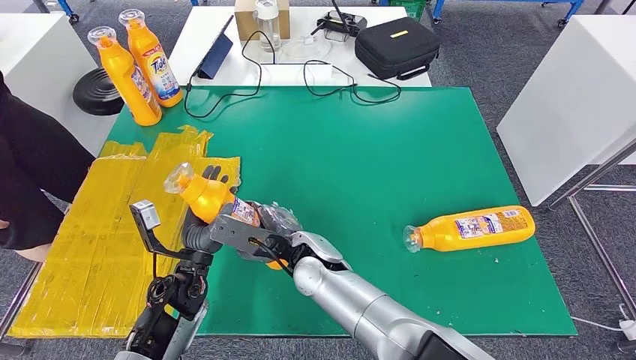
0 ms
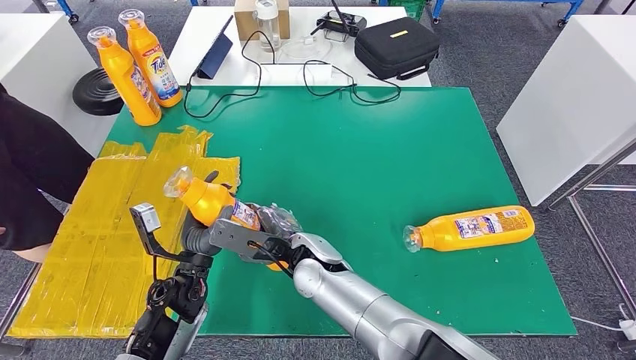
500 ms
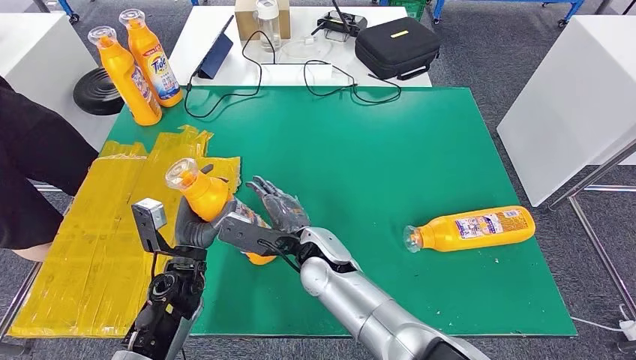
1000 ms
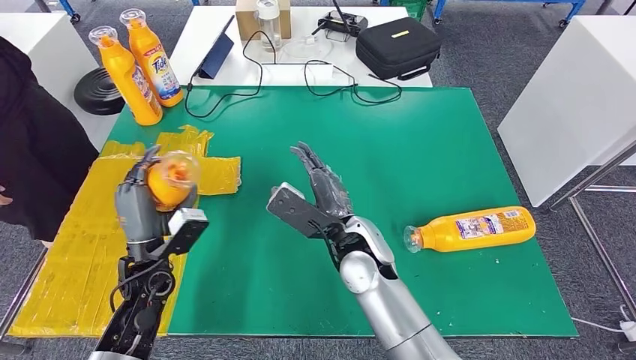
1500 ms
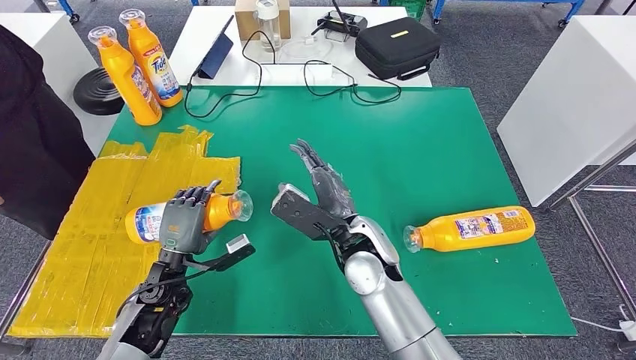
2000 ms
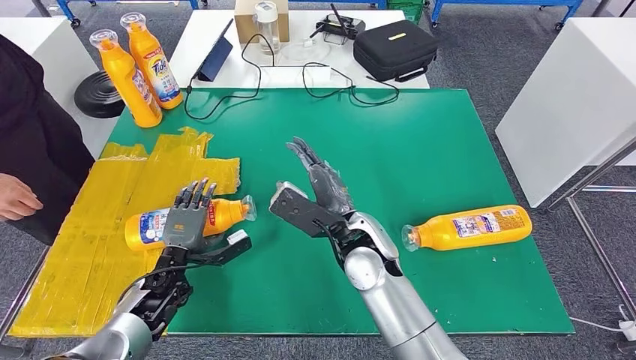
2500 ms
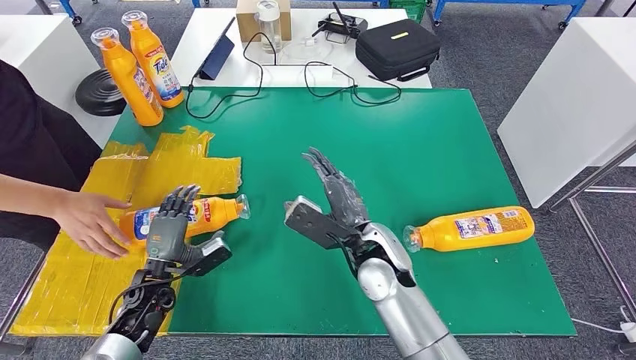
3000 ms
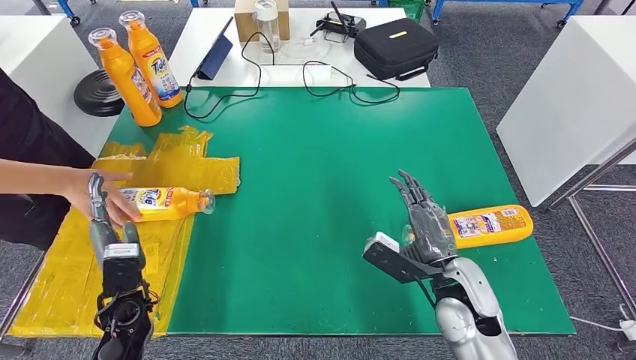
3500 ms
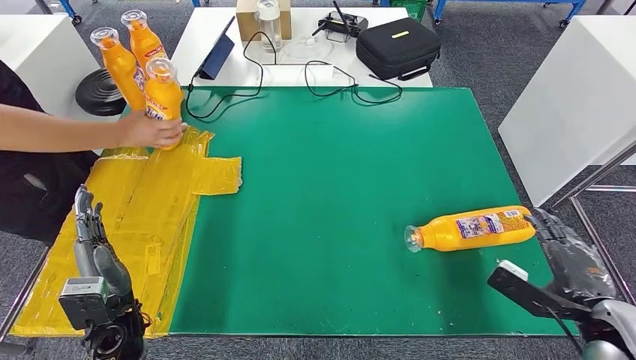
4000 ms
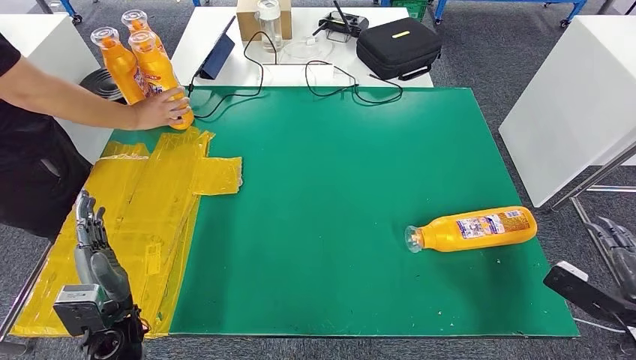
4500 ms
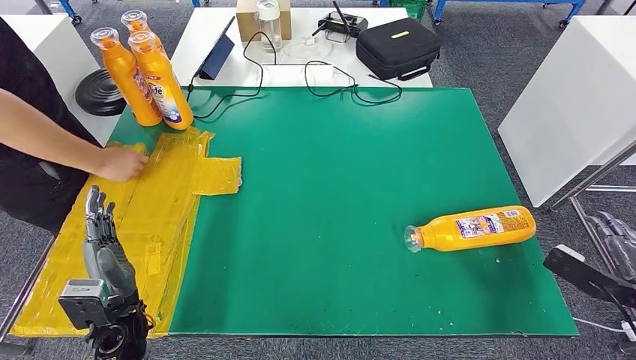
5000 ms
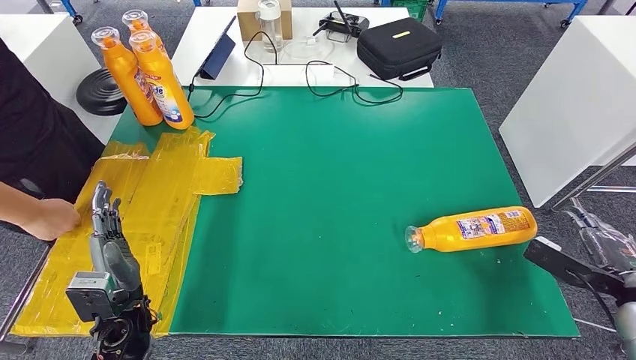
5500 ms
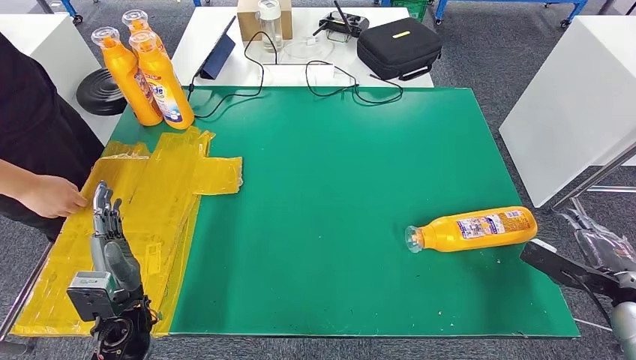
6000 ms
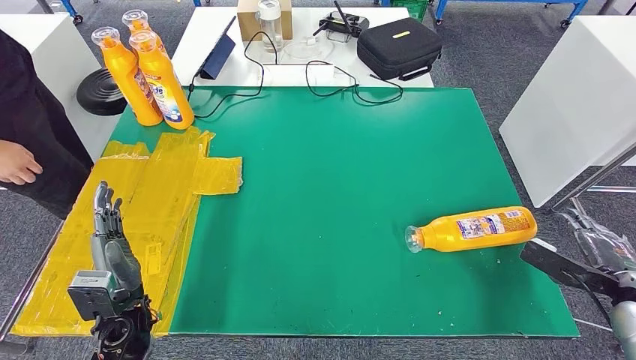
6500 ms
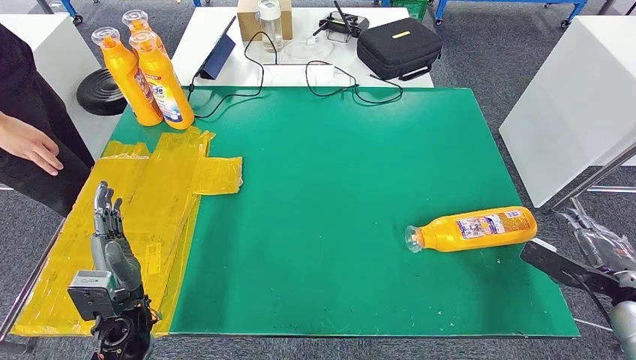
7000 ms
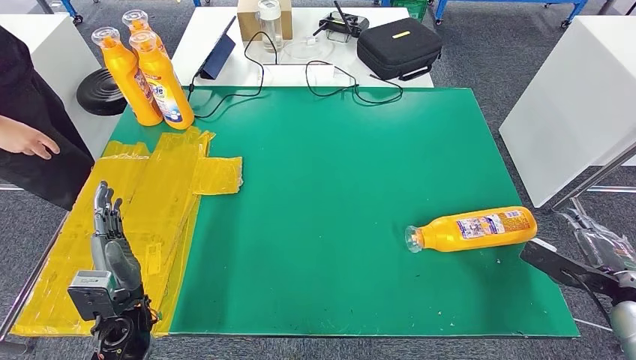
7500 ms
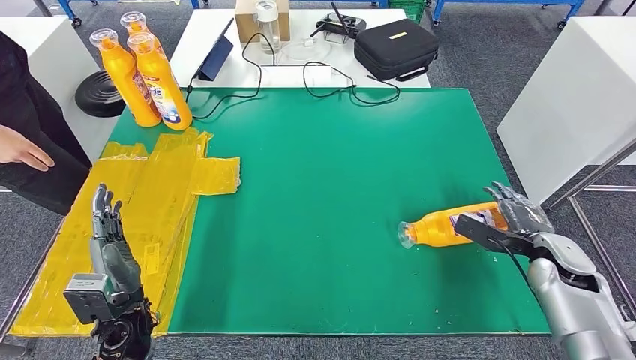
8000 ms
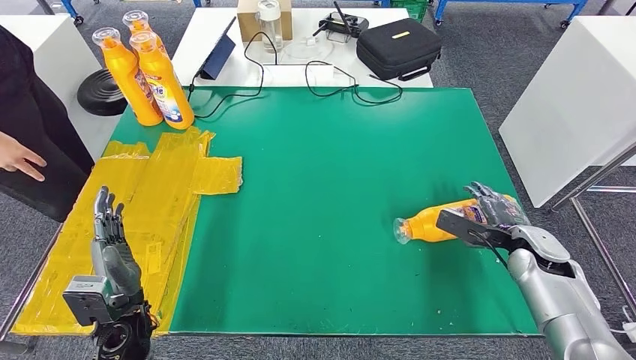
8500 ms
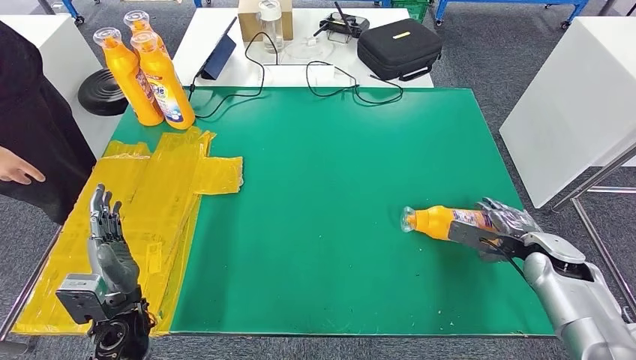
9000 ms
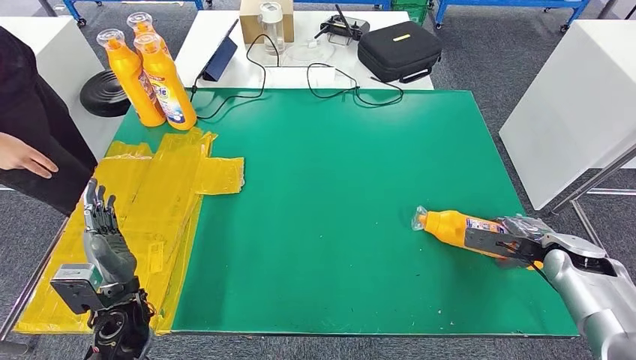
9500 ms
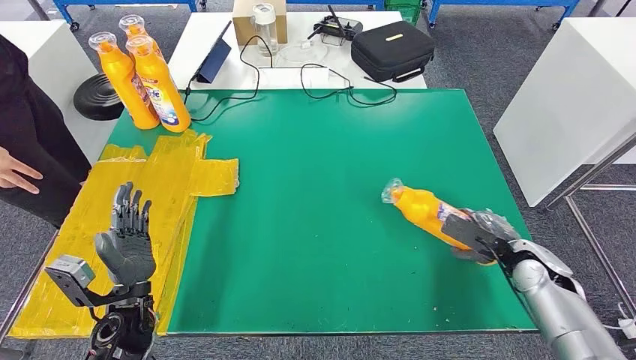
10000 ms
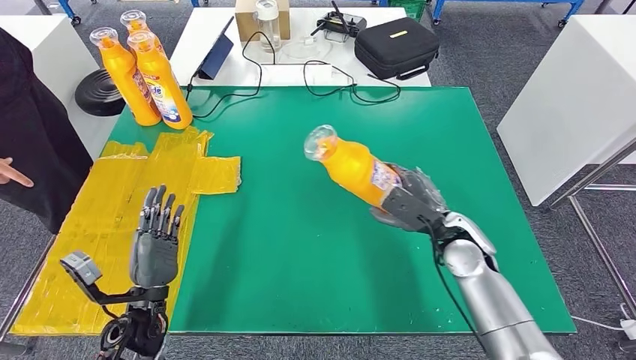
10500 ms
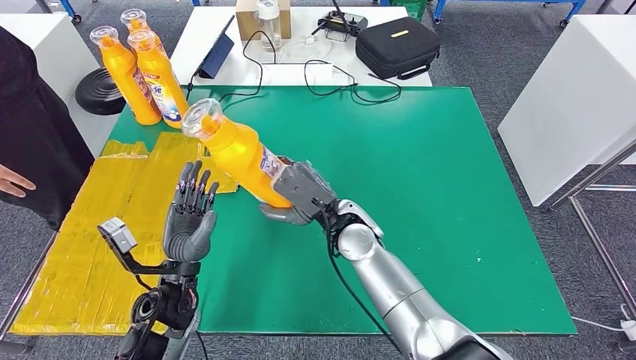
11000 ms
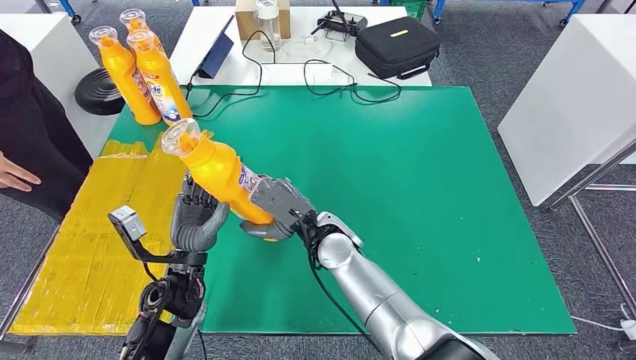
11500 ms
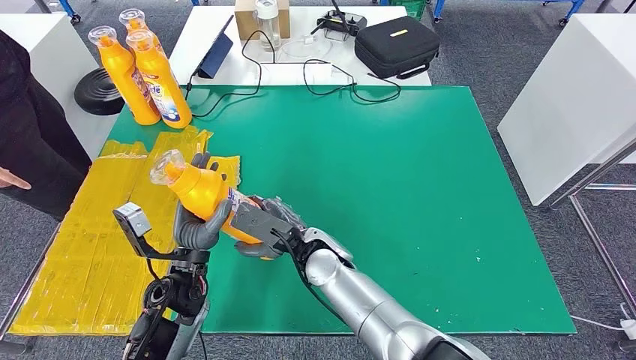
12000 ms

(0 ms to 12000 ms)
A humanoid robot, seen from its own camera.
Step, 0 ms - 2500 ms: Flip the fast-moving consumer goods bottle to the front side.
Step, 8000 ms - 10500 ms: Pick up the fast-moving consumer goods bottle from the table.
0 ms - 2000 ms: The left hand moves to the left, some 5 cm. Meanwhile the right hand shifts roughly 10 cm to the right.
4000 ms - 6000 ms: The right hand goes about 10 cm to the right and forward.

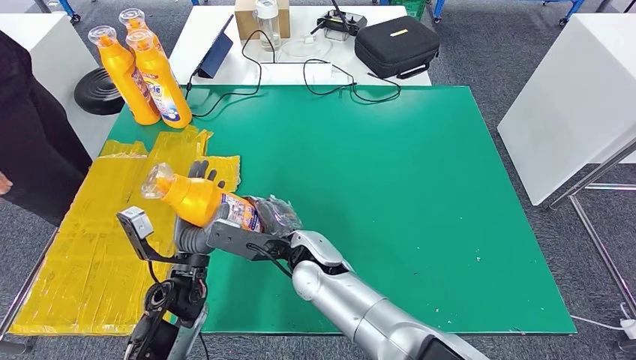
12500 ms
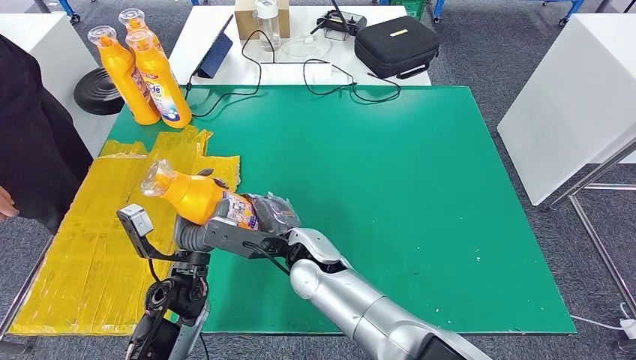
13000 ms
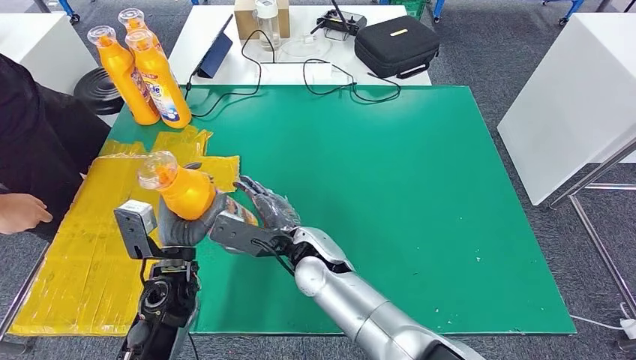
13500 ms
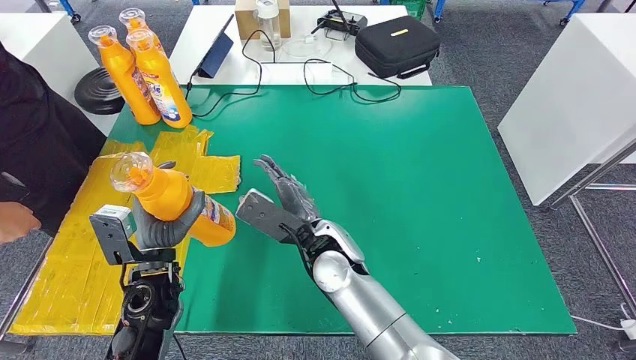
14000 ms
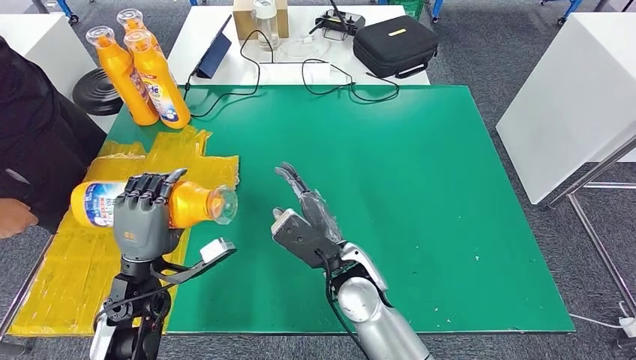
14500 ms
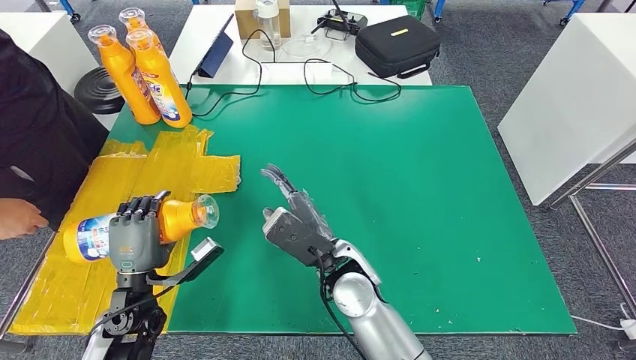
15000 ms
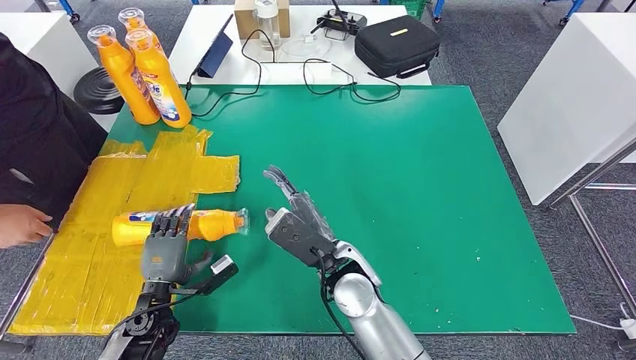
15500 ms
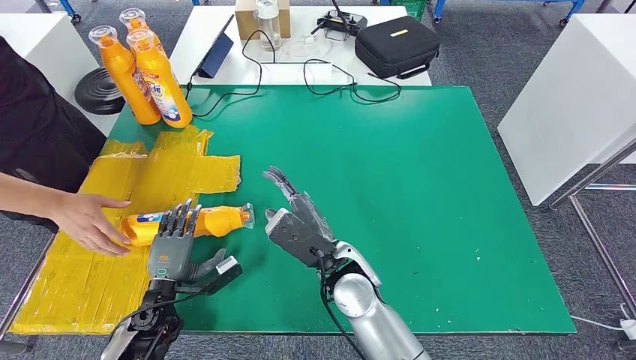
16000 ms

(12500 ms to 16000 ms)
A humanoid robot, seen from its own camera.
Step, 12500 ms - 16000 ms: Flip the fast-moving consumer goods bottle to the front side.
12500 ms - 14500 ms: The left hand heads to the left, covering approximately 5 cm; the right hand moves to the right, some 5 cm.
14500 ms - 16000 ms: The left hand shifts about 15 cm downward.
